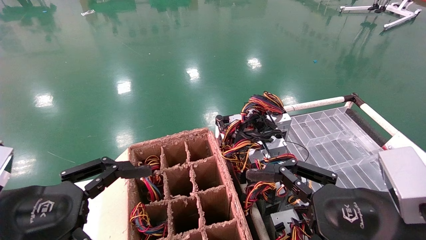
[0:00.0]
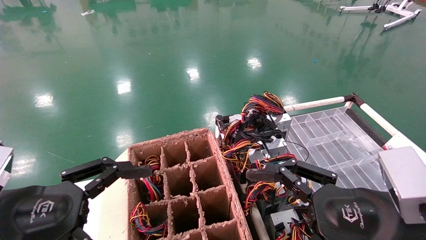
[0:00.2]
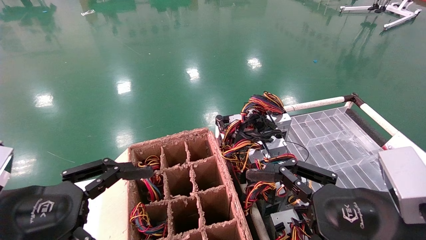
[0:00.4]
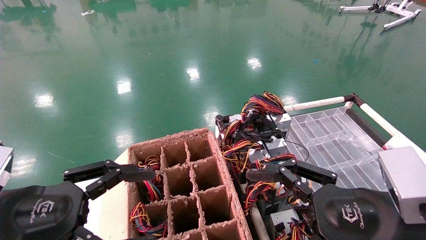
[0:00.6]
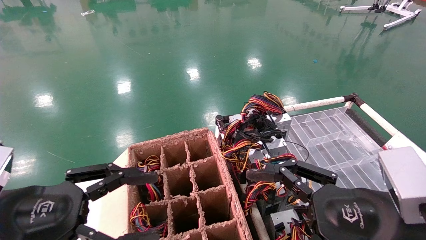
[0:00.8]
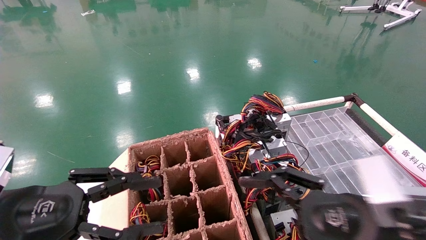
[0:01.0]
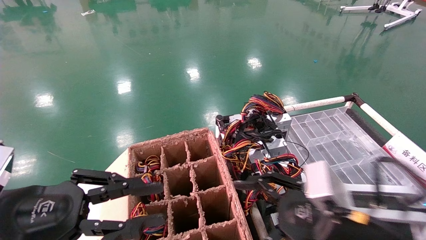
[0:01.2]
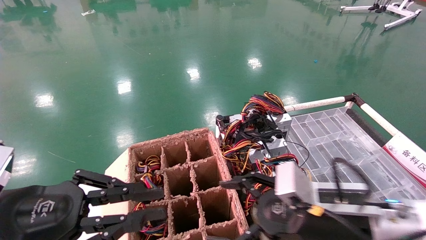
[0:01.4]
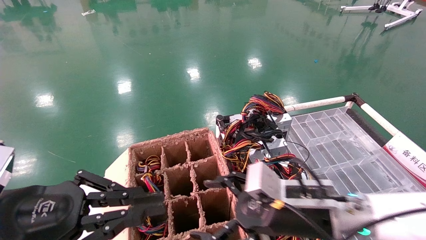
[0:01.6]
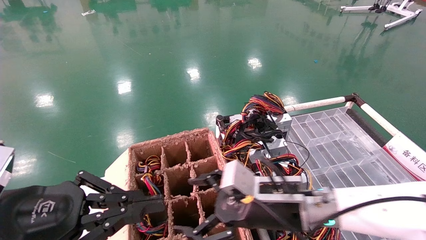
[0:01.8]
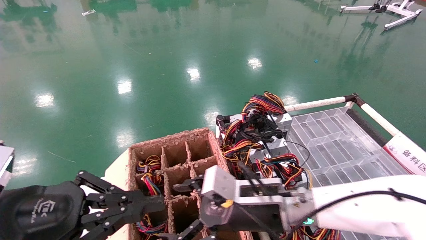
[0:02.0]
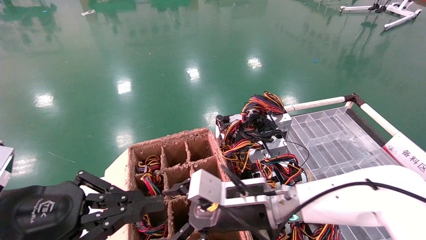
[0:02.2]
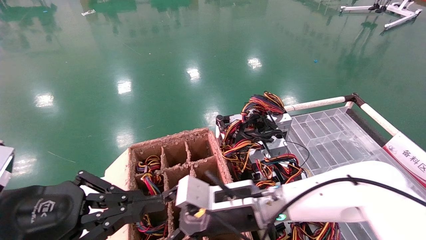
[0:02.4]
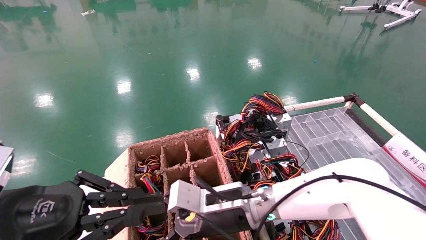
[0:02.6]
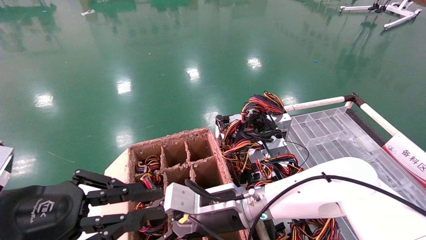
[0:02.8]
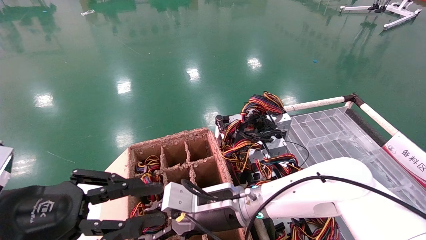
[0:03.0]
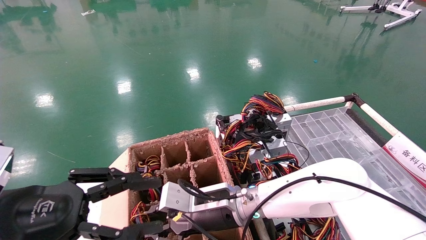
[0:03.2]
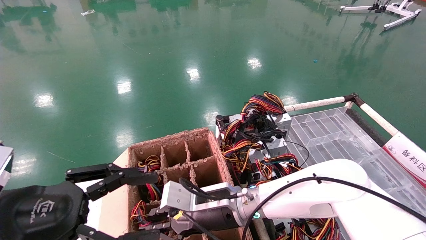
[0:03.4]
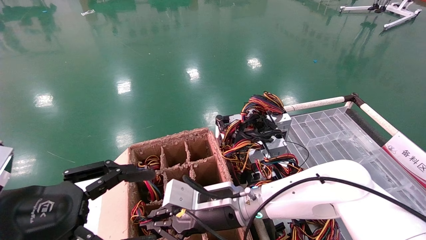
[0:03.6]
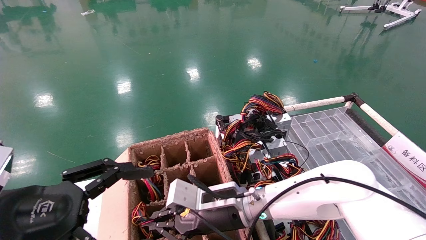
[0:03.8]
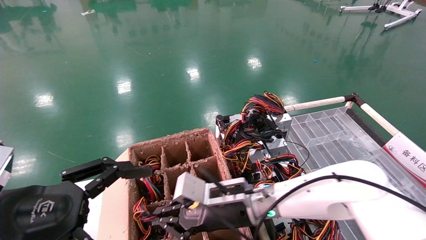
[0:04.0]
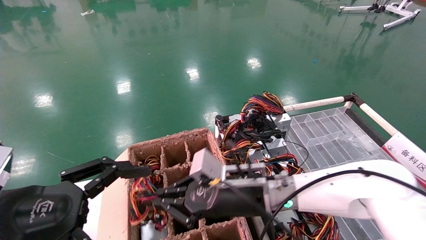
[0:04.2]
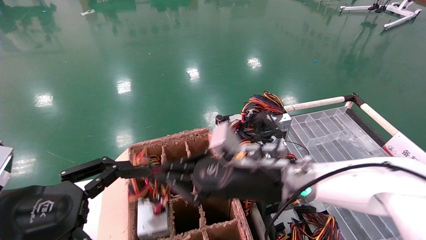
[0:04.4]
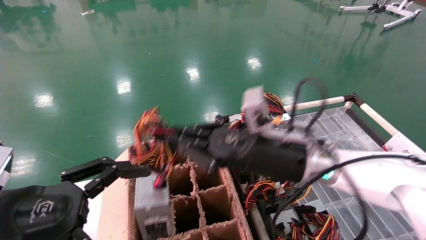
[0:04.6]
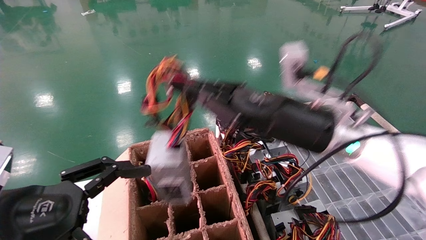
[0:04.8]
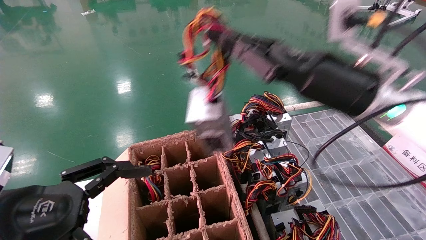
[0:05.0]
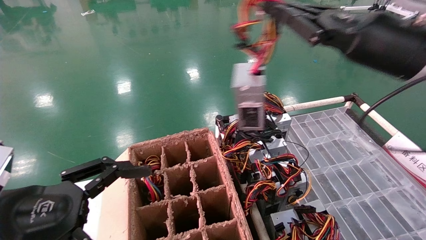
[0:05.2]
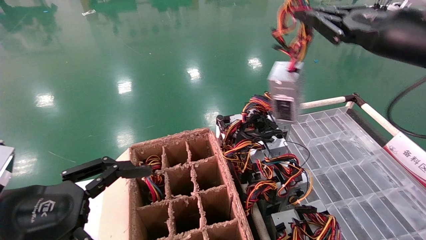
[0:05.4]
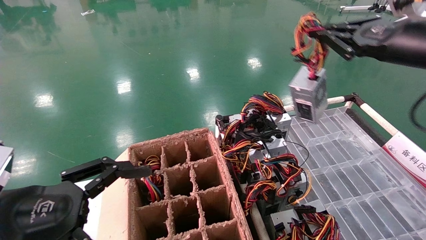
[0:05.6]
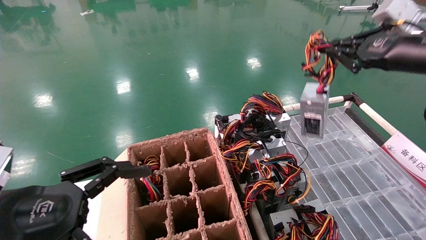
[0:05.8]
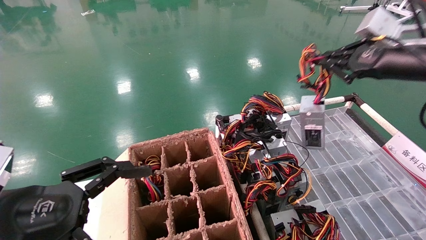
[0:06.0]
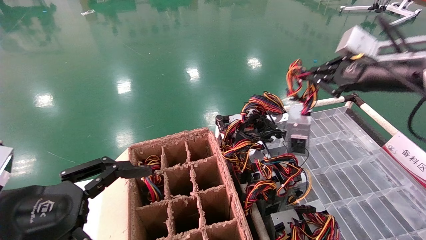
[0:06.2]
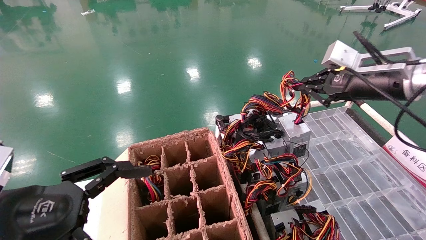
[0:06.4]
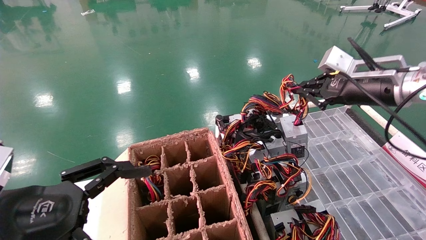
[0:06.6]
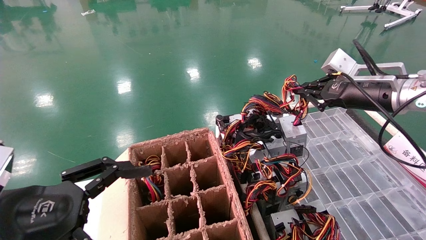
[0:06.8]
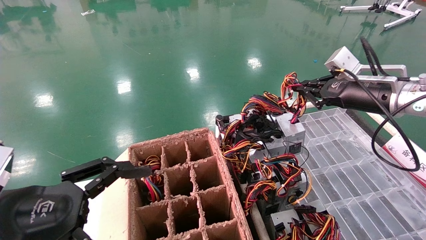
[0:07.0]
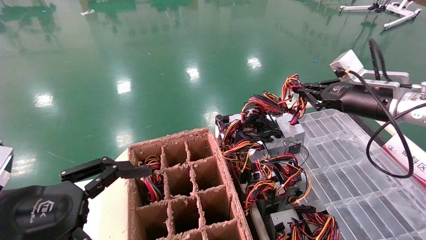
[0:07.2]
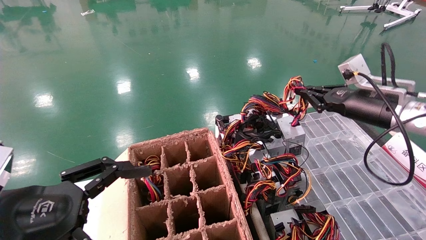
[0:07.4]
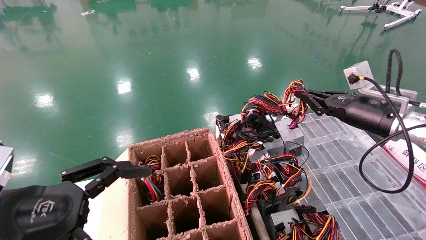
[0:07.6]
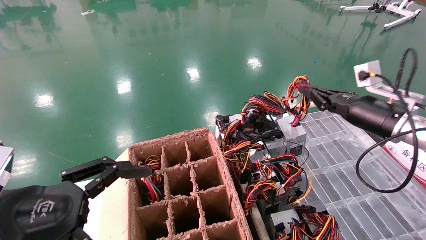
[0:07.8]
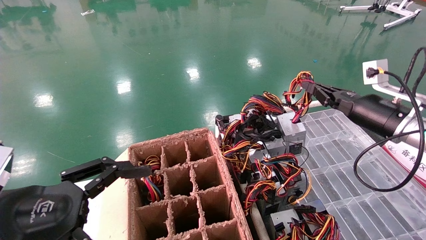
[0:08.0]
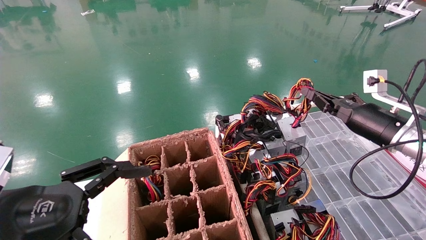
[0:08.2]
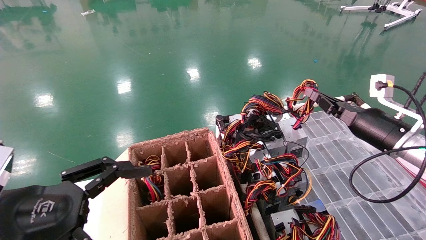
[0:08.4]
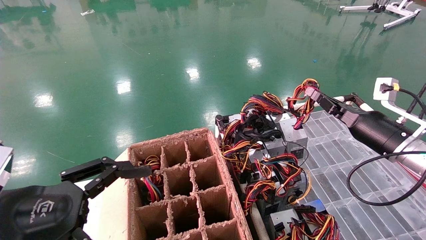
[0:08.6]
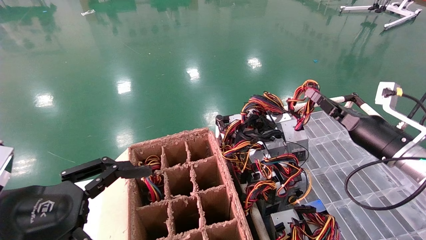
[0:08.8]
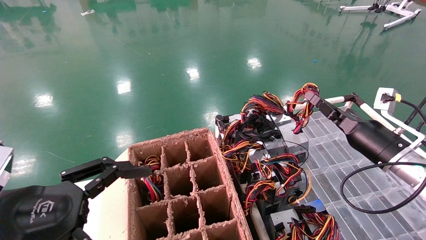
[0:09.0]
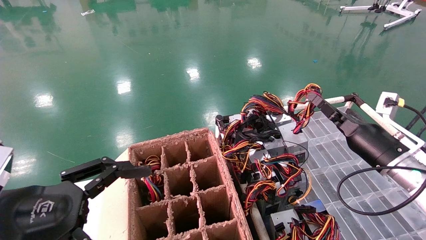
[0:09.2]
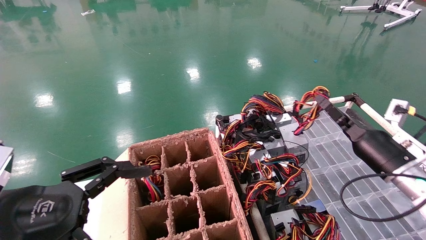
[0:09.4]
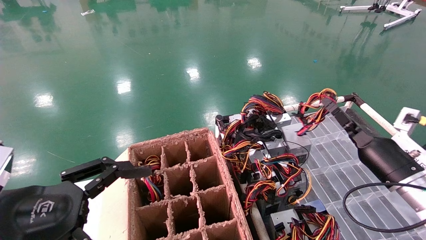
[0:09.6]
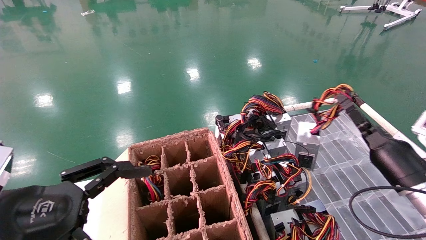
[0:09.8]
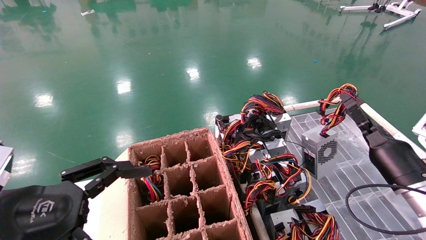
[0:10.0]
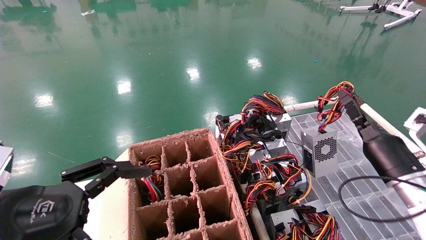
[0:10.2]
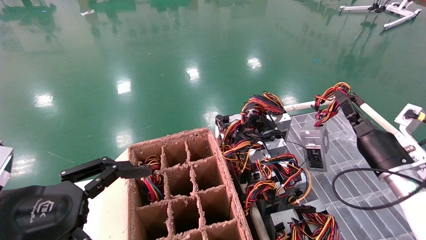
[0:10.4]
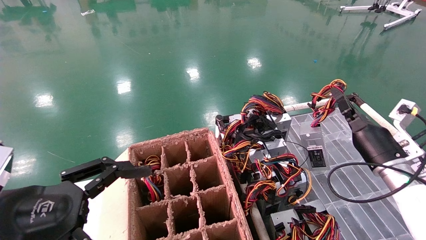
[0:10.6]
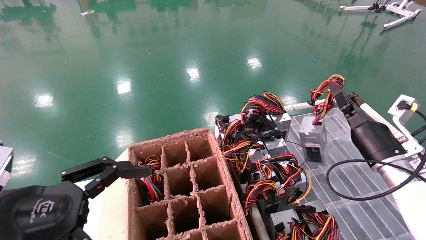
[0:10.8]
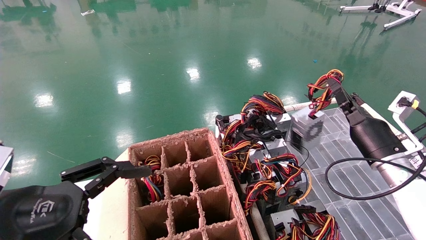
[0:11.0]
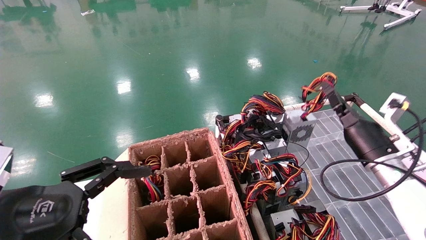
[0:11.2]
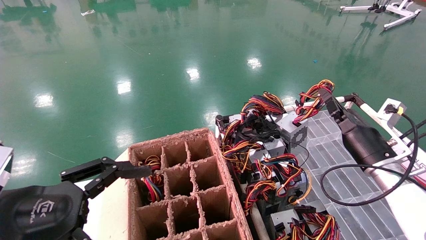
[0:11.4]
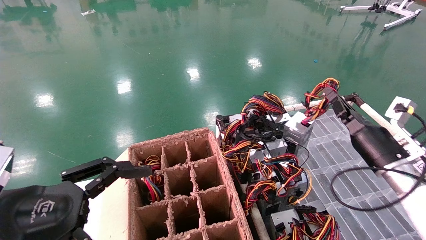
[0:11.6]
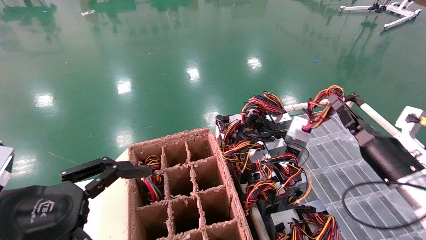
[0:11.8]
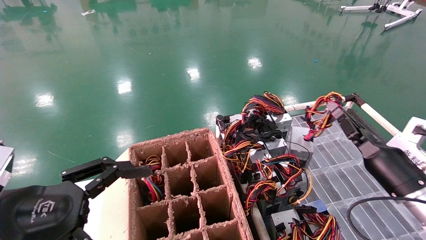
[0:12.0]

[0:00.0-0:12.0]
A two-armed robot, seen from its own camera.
Step, 0:02.0 to 0:04.0: Grab and lift the power supply from the large box.
0:00.0 to 0:01.6: The right gripper travels forward, to the left and downward by about 15 cm, while the left gripper closes up.
0:01.6 to 0:03.0: The right gripper heads to the left and forward, covering about 15 cm, and closes.
0:03.0 to 0:04.4: The left gripper opens, while the right gripper heads upward and to the right, covering about 10 cm, and closes its fingers.
0:04.4 to 0:06.0: The right gripper moves to the right and upward, approximately 30 cm.
0:06.0 to 0:07.6: The right gripper moves downward and forward, some 10 cm.
0:07.6 to 0:09.0: The right gripper heads downward, covering about 10 cm.
0:09.0 to 0:10.4: There are only small adjustments of the grippers.
0:10.4 to 0:12.0: The grippers make only small movements.

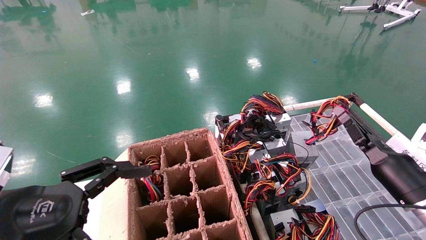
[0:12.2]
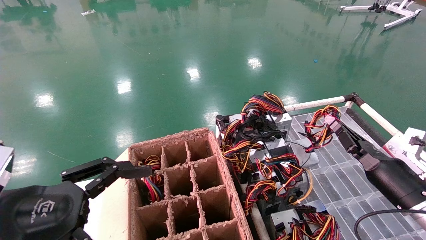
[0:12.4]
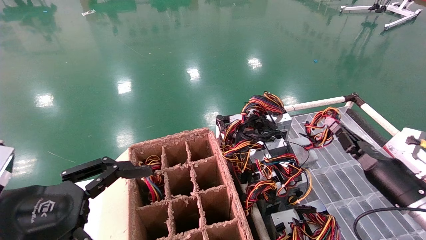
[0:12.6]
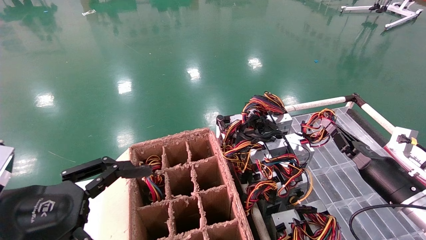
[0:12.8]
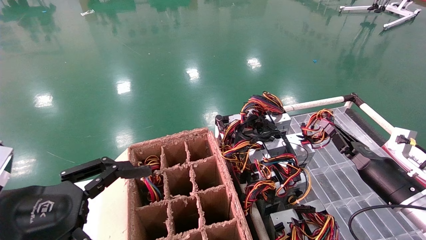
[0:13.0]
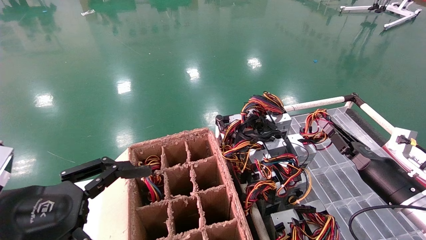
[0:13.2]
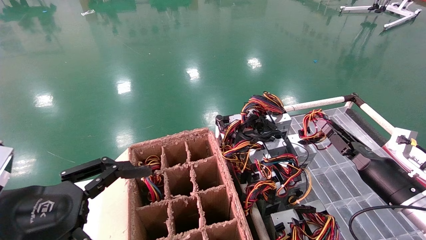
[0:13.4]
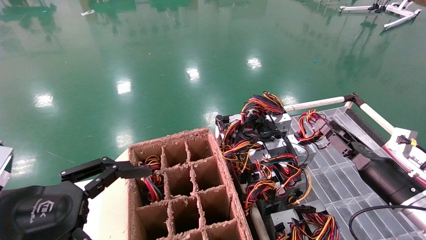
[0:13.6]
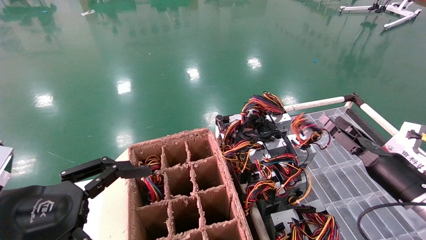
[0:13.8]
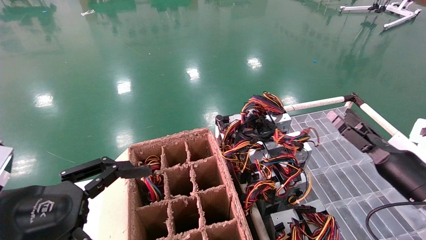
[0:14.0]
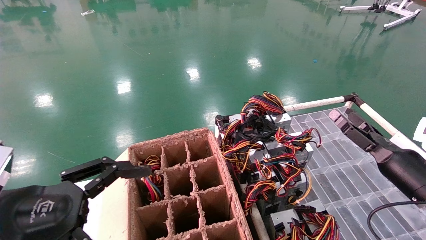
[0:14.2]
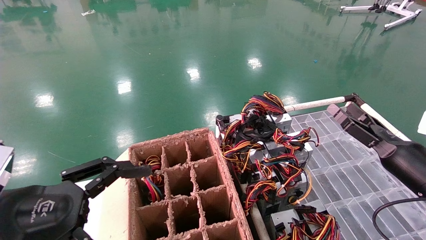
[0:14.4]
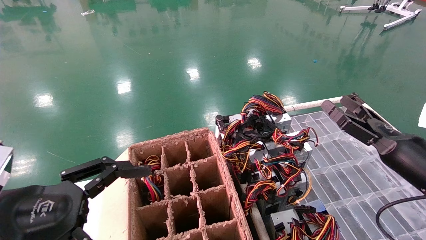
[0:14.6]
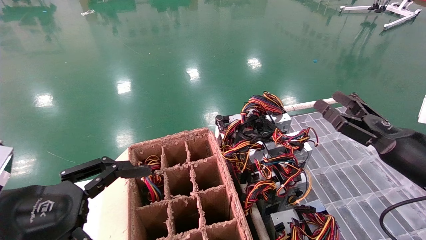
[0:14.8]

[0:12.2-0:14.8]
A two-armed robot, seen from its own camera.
0:12.2 to 0:13.4: There are only small adjustments of the grippers.
0:13.4 to 0:14.8: The right gripper goes some 10 cm upward and backward, and opens its fingers.

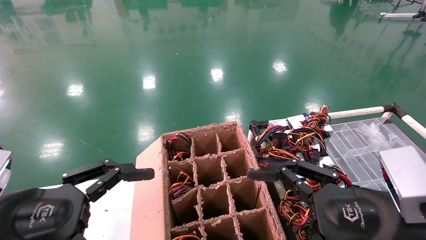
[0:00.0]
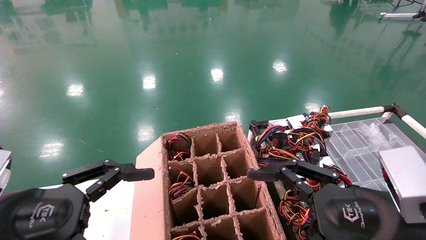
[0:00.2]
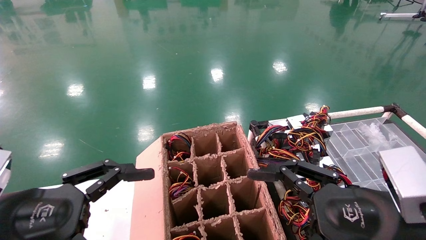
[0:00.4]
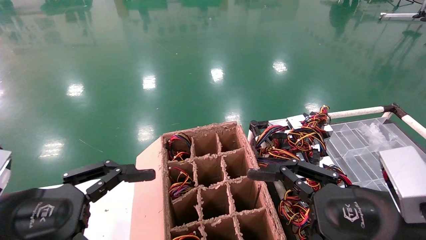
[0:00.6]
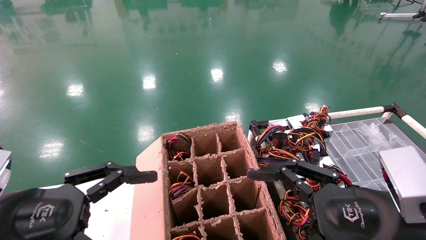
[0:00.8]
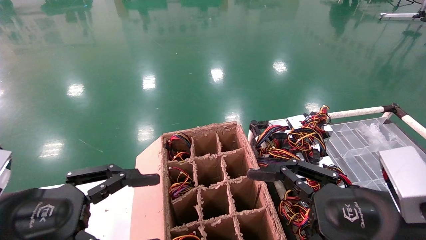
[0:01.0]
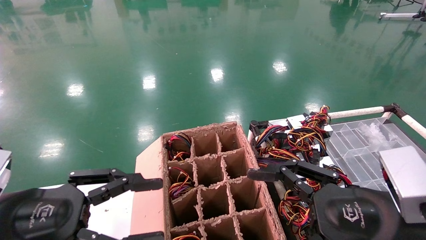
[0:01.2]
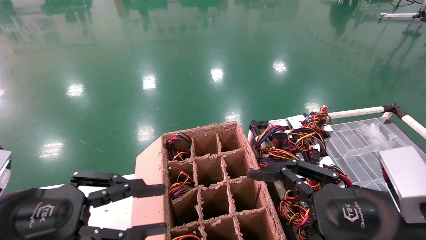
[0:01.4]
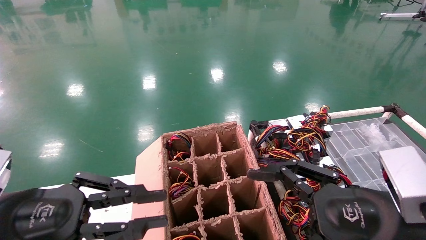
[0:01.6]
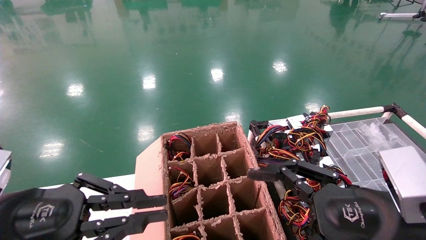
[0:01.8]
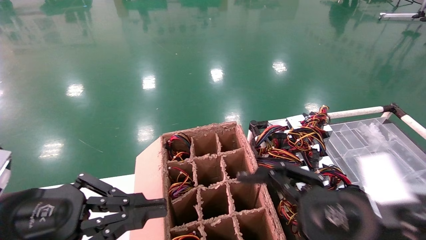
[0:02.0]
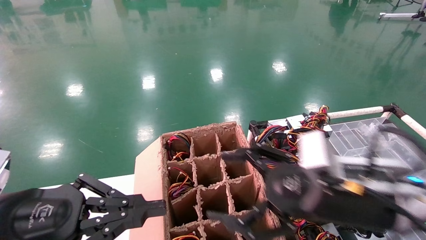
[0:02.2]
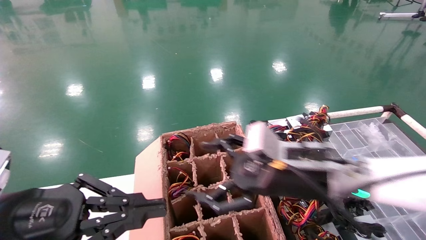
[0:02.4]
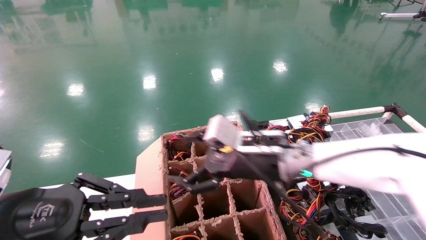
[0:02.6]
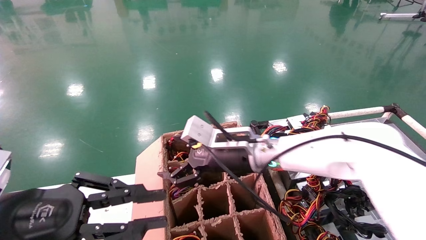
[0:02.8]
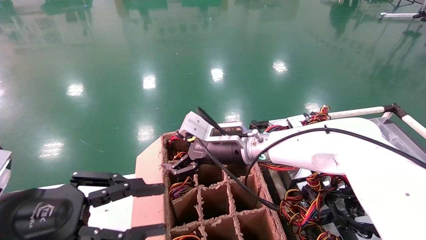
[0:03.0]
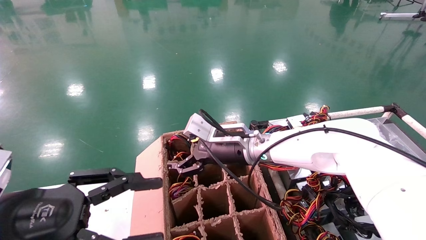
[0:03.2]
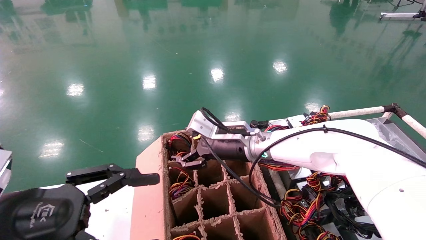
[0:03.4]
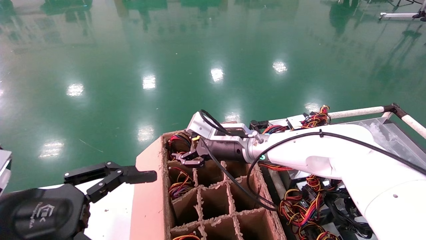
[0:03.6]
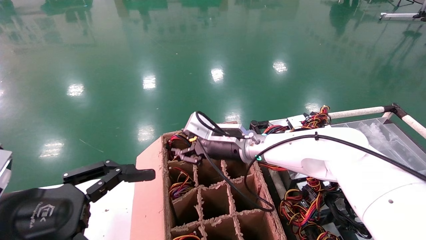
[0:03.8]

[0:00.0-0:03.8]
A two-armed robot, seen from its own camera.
0:00.0 to 0:01.2: Both grippers stay put.
0:01.2 to 0:02.6: The left gripper closes its fingers; the right gripper shifts some 20 cm forward and to the left.
0:02.6 to 0:03.8: The right gripper travels forward and to the left by roughly 10 cm, and closes up; the left gripper opens.
